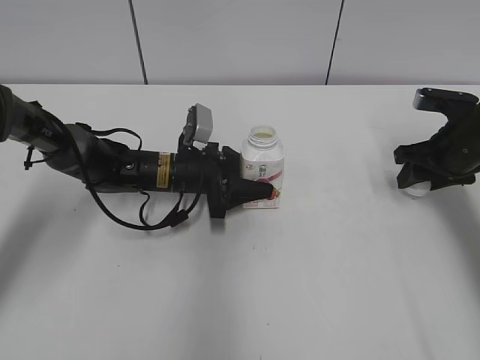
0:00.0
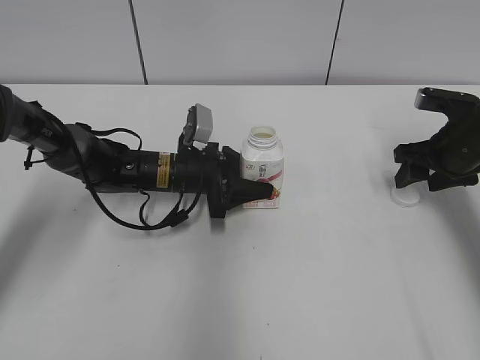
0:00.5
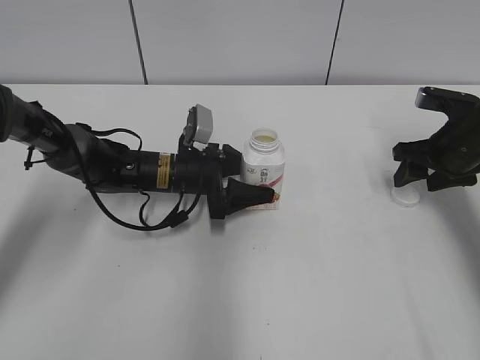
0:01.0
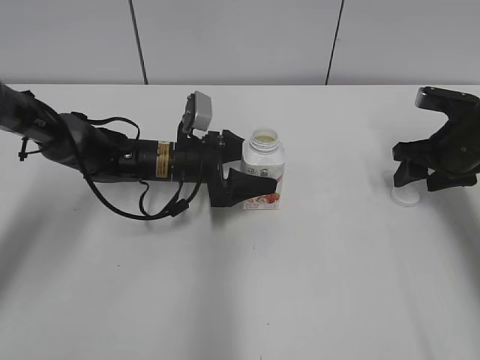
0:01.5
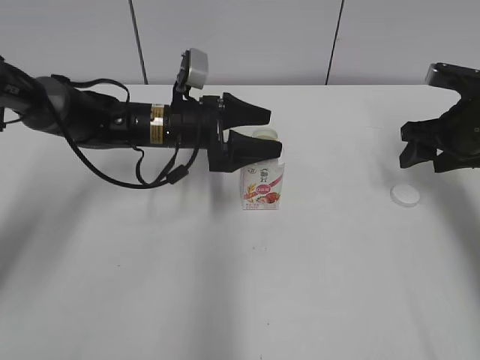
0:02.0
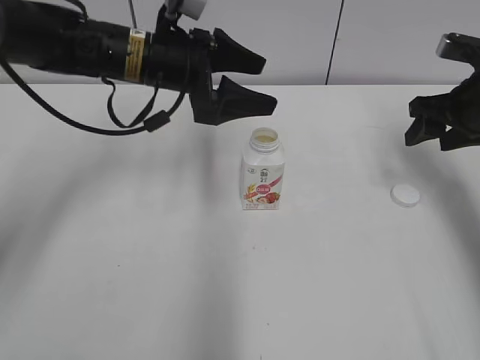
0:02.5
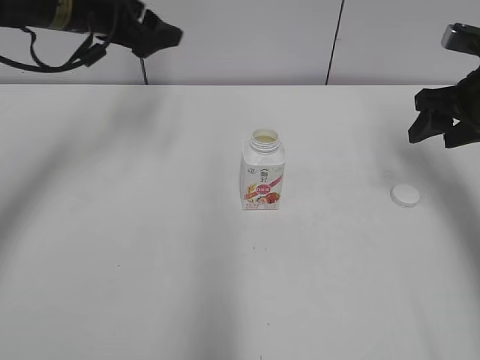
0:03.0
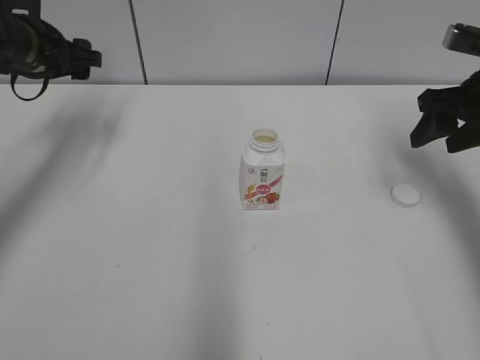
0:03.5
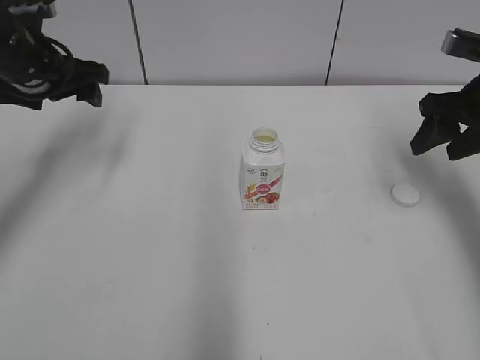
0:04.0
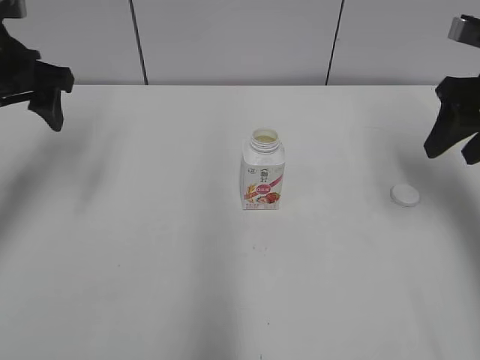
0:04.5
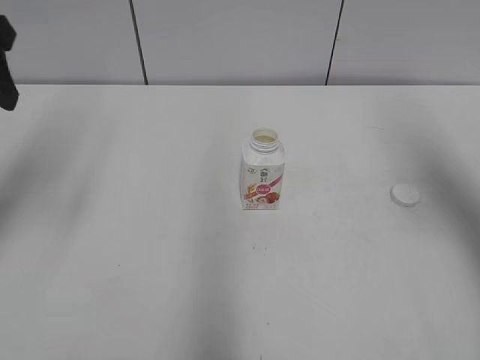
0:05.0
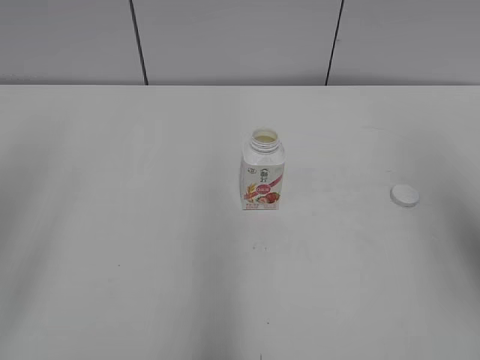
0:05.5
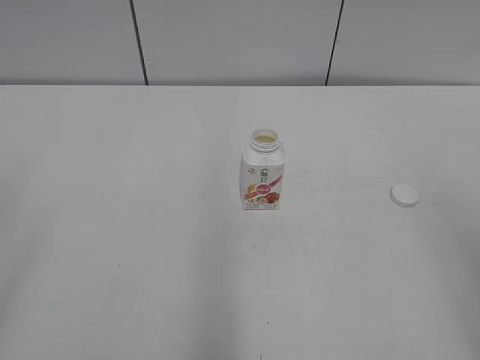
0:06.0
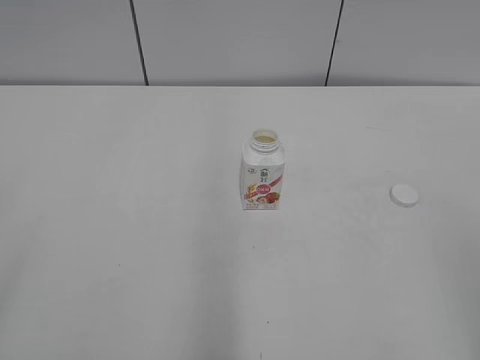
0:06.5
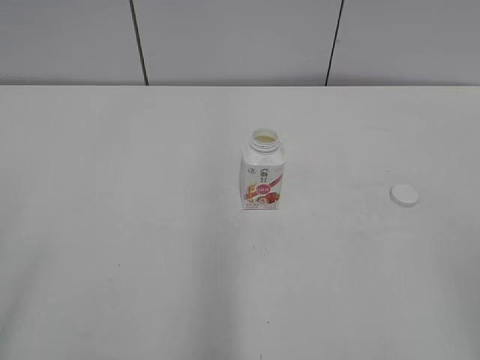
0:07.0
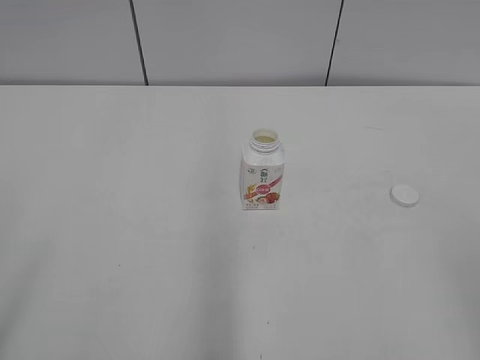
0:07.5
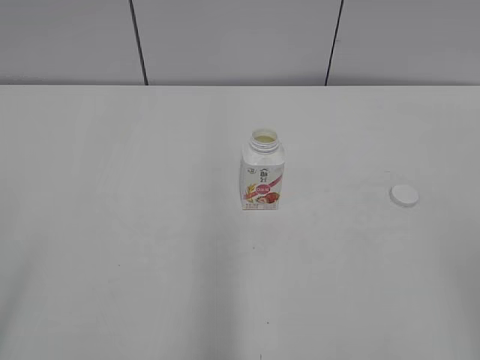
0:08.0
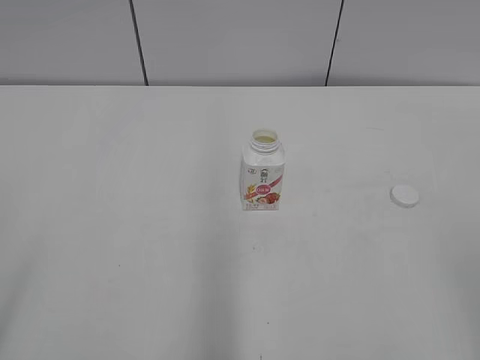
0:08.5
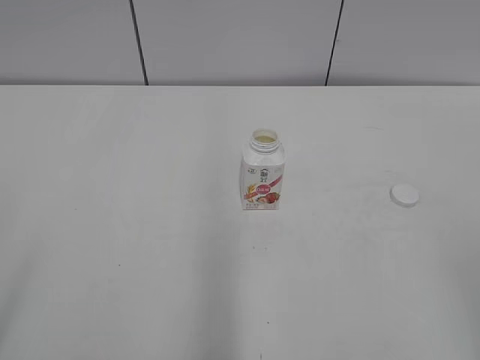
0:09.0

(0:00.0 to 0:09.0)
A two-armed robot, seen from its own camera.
Step, 0:01.0 - 0:01.5: Place the bottle on the table with the left gripper.
0:00.0 - 0:02.0: The right gripper opens its fingers, while the left gripper travels upward by roughly 5 cm, and opens its fingers.
0:02.0 - 0:04.5: The left gripper moves to the left and upward, approximately 25 cm. Meanwhile the right gripper travels upward by some 10 cm.
0:04.5 - 0:07.0: The grippers both shift backward by approximately 35 cm.

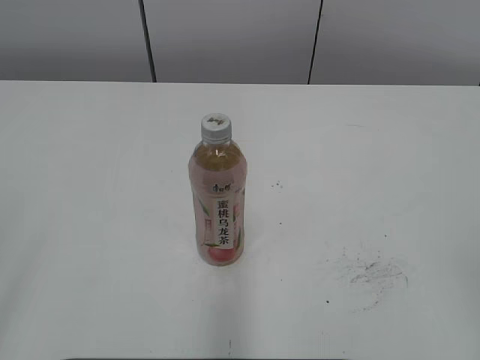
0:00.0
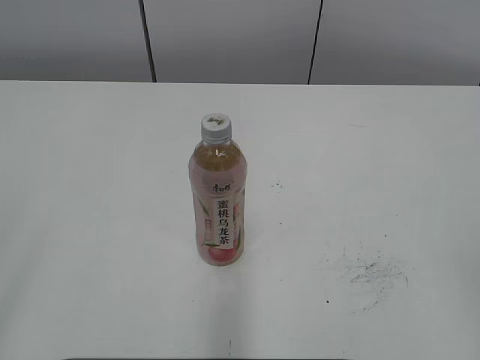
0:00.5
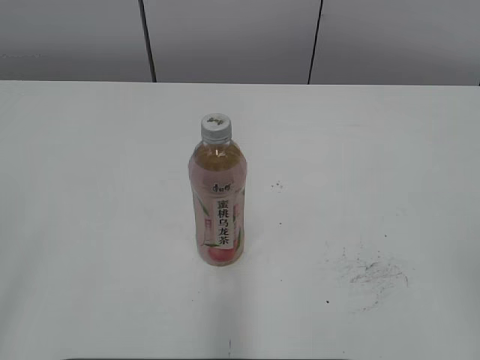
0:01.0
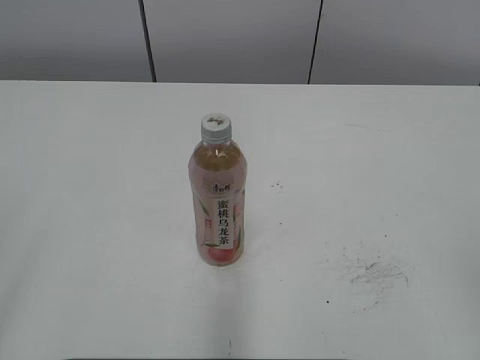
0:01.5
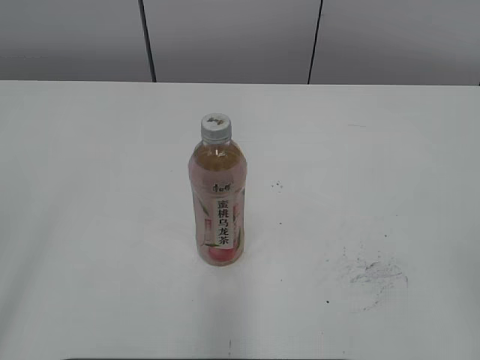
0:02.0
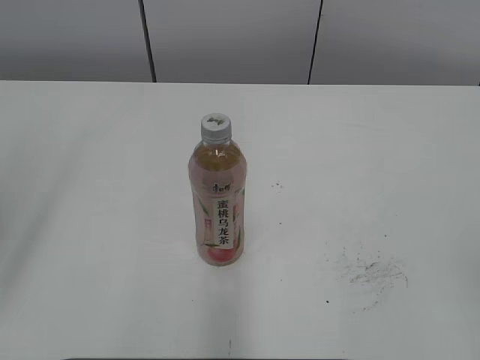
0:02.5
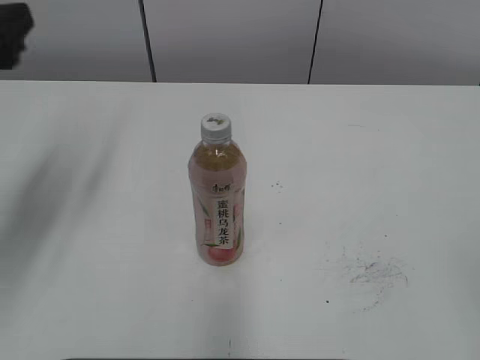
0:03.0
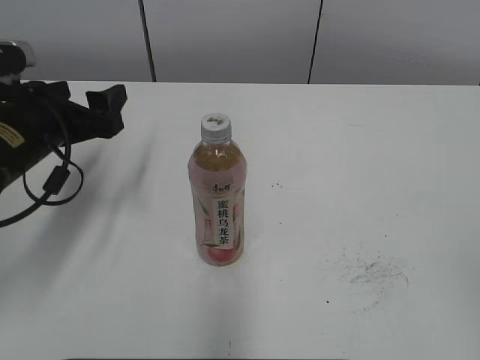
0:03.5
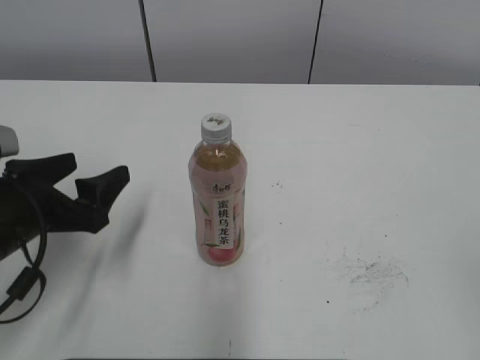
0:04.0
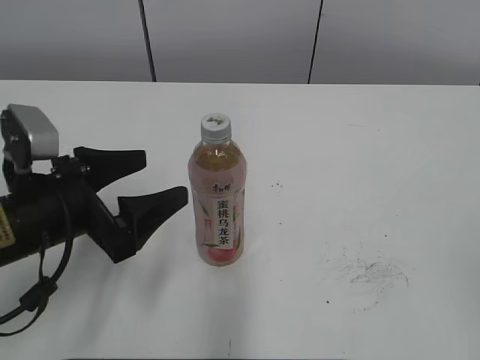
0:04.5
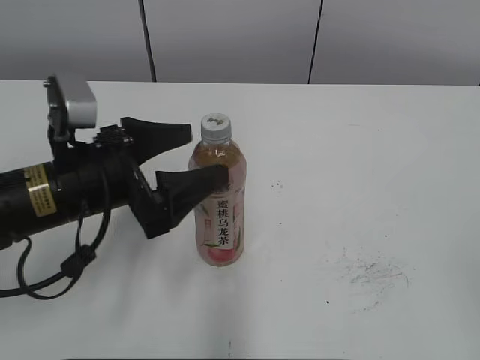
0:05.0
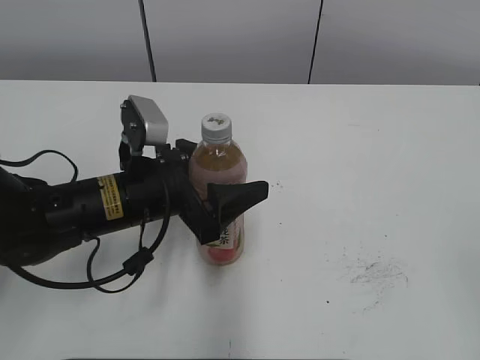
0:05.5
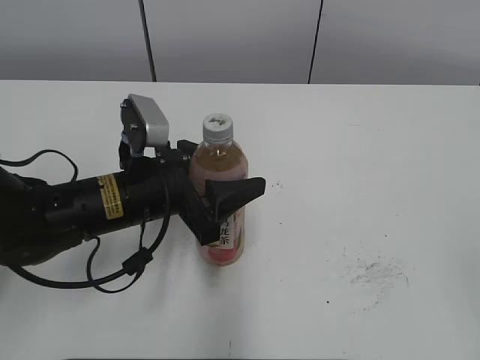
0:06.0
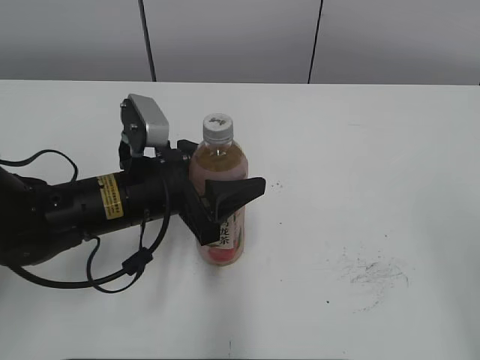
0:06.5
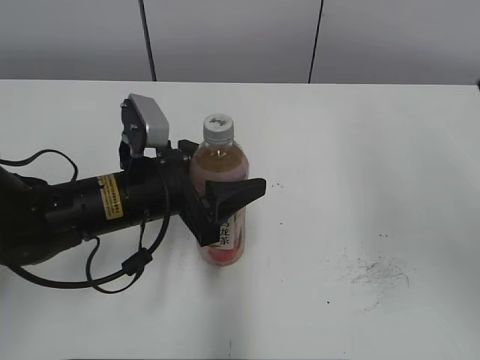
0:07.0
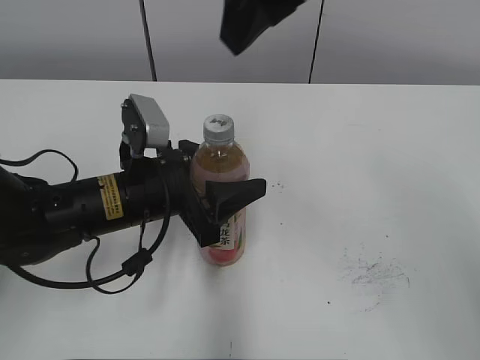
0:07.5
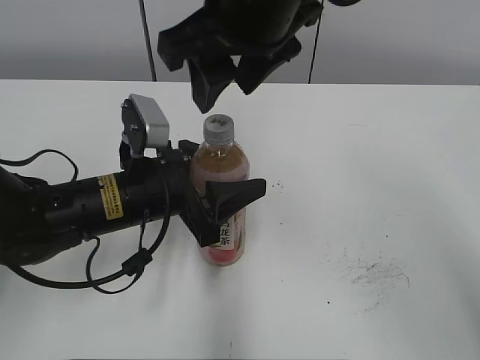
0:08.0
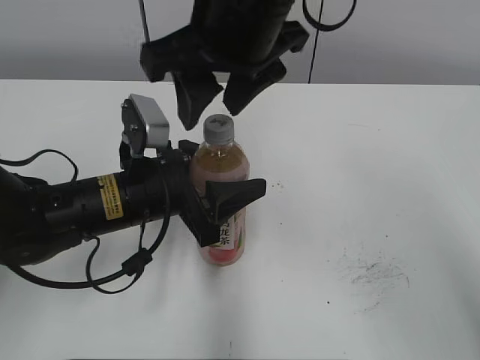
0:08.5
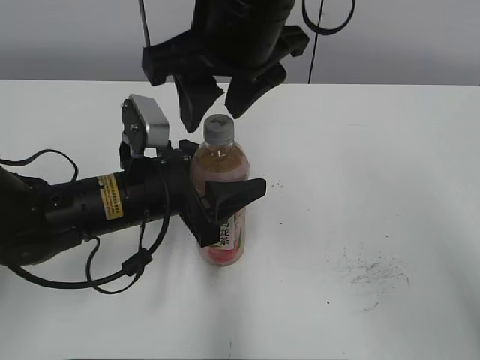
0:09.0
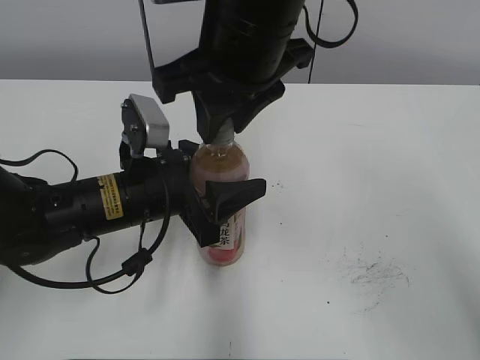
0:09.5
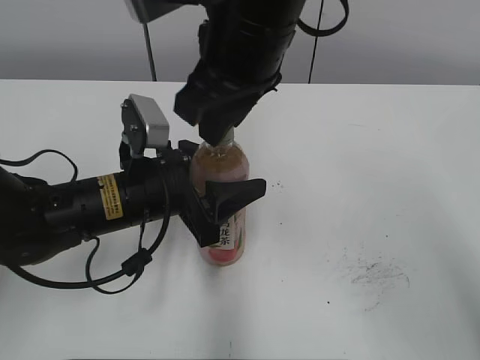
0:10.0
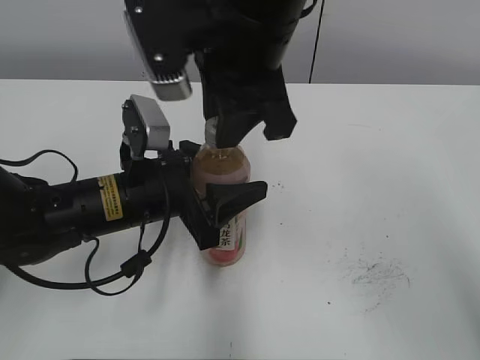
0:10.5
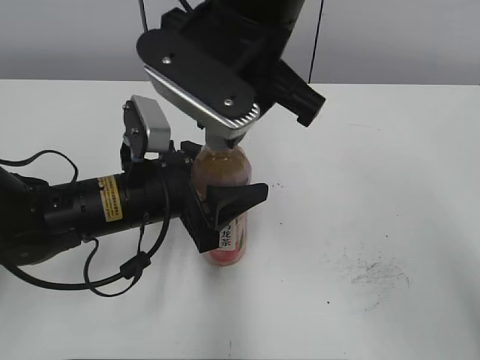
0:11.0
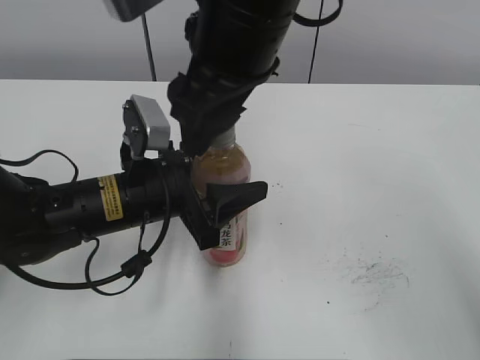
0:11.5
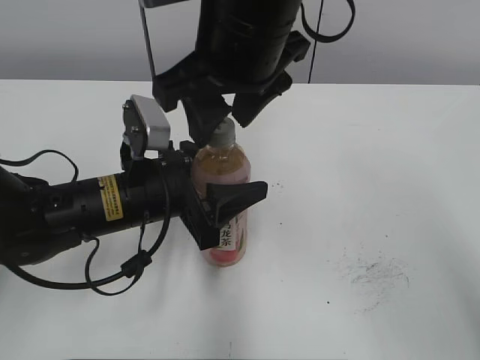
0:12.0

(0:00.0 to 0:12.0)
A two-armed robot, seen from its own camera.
Step, 0:00.0 - 0:05.5: Grab the Peach Oolong Tea with the left hand.
0:02.0 - 0:04.0: The left gripper heads forward and downward, covering roughly 30 cm.
0:04.0 - 0:06.0: The left gripper shifts approximately 10 cm to the right, and closes.
0:06.0 - 0:08.0: The right gripper goes some 40 cm forward and to the left.
0:08.0 - 0:10.0: The right gripper closes.
0:10.0 - 0:12.0: The right gripper opens its fingers.

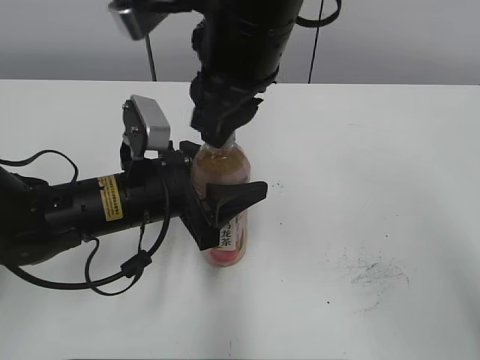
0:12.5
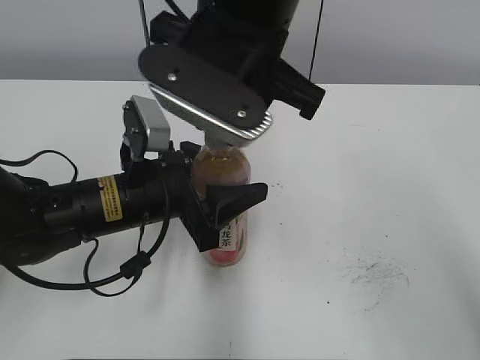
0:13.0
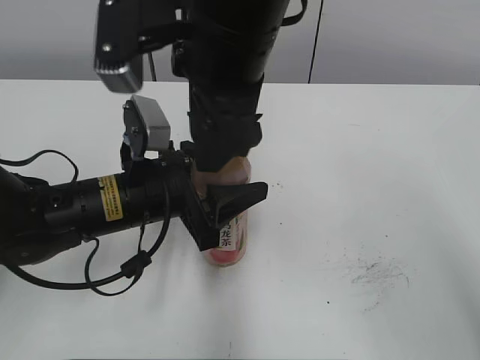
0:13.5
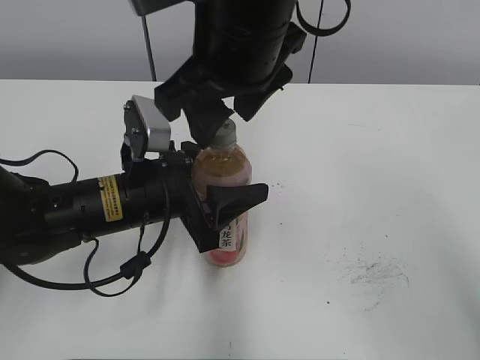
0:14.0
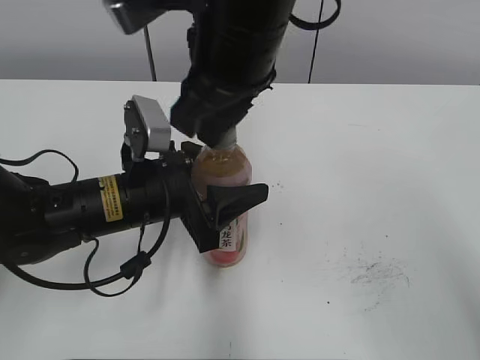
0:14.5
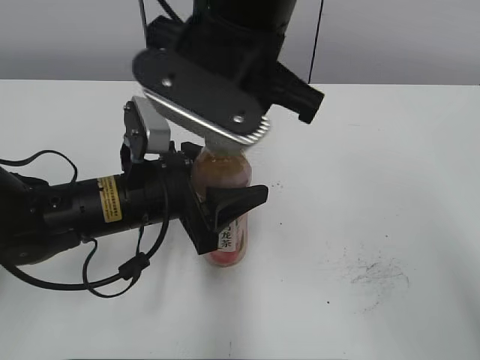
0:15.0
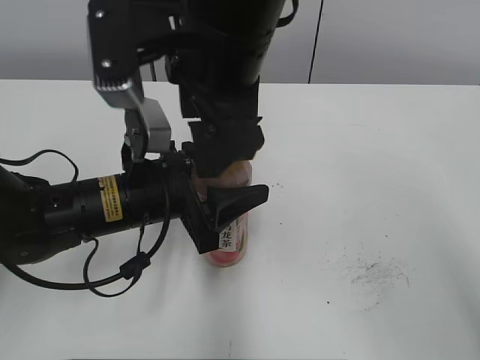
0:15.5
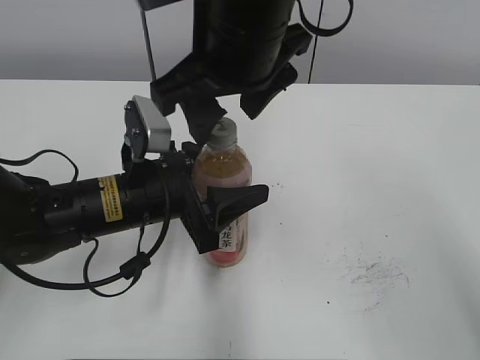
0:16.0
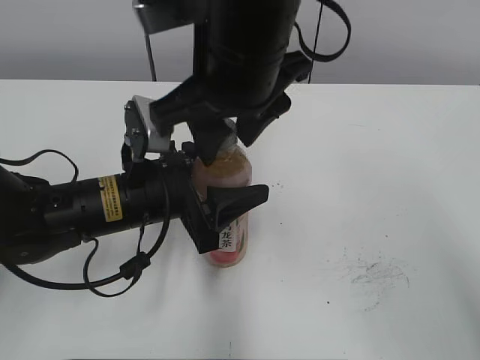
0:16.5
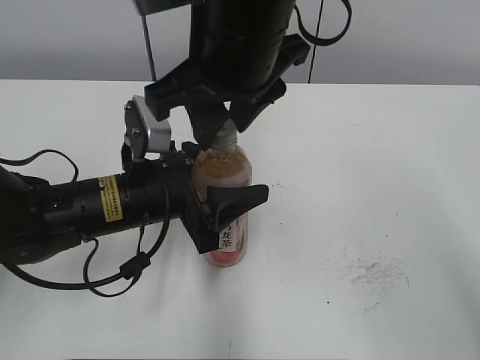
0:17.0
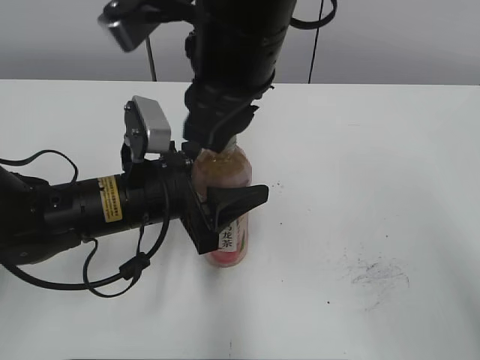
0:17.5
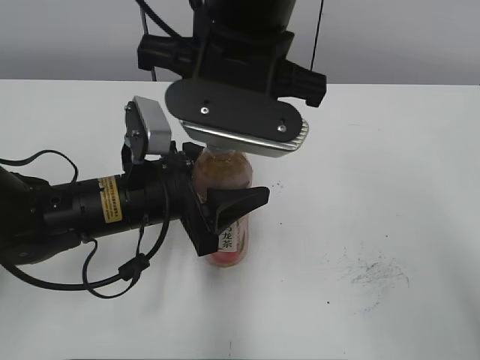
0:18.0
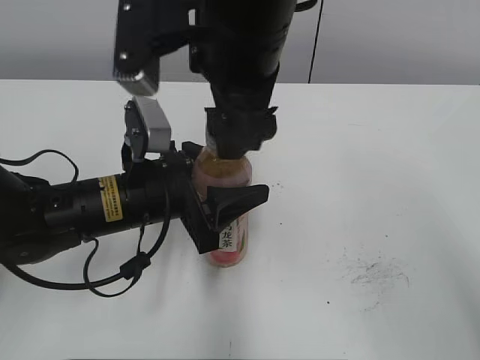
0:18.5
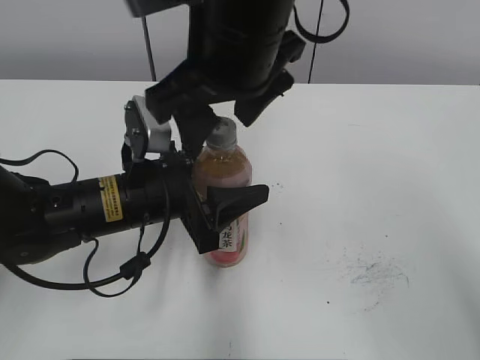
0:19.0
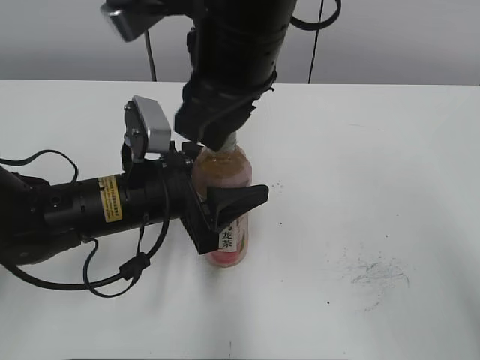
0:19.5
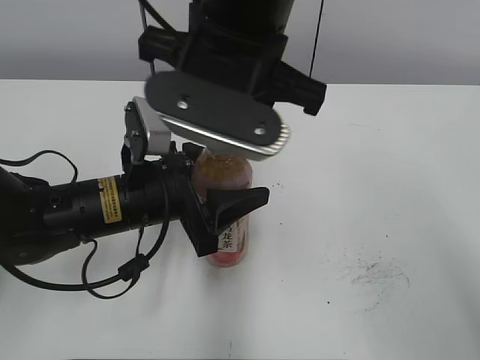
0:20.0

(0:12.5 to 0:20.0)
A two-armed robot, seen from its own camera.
0:12.5 - 0:14.5: The right gripper opens, then closes again.
0:14.5 - 0:16.5: The right gripper opens up.
0:16.5 - 0:18.0: The right gripper closes.
0:18.0 - 0:20.0: The right gripper opens, then closes again.
